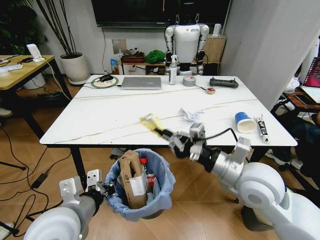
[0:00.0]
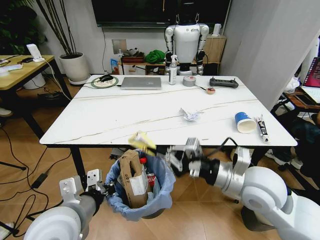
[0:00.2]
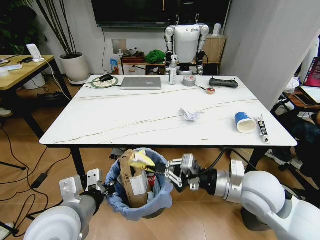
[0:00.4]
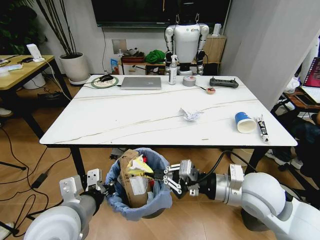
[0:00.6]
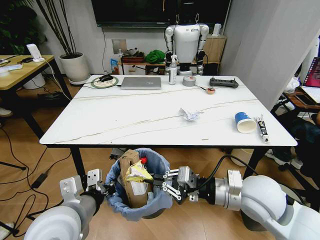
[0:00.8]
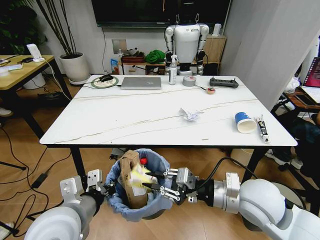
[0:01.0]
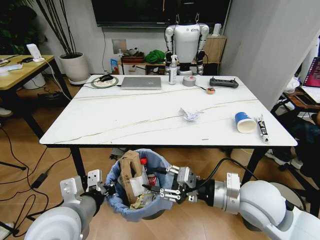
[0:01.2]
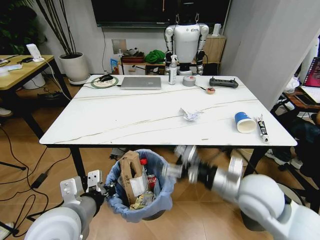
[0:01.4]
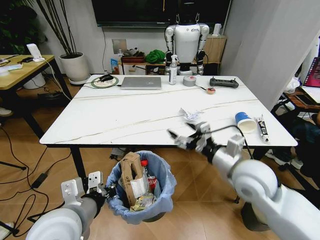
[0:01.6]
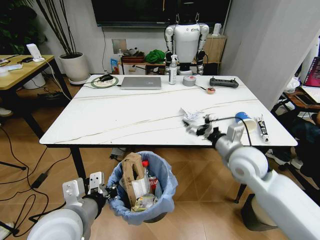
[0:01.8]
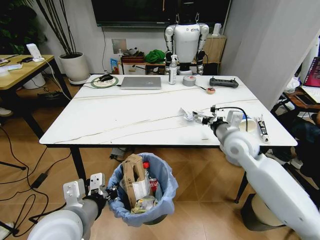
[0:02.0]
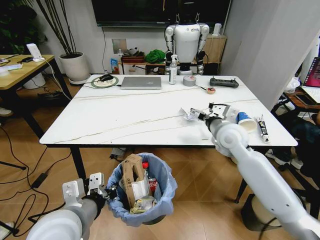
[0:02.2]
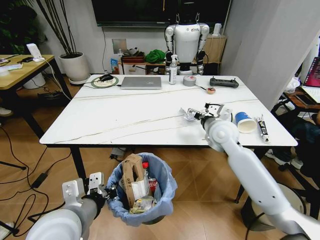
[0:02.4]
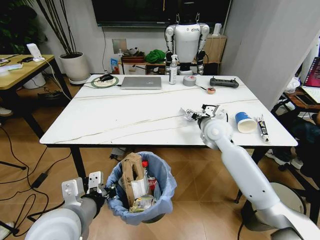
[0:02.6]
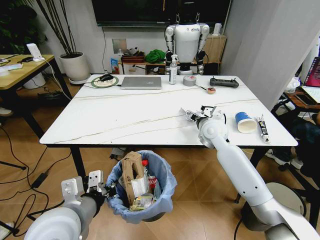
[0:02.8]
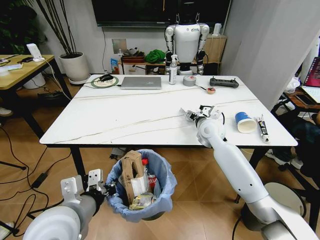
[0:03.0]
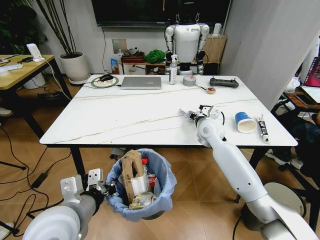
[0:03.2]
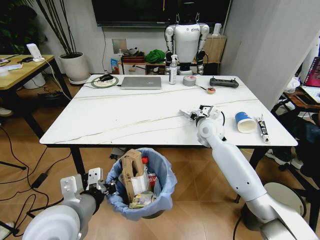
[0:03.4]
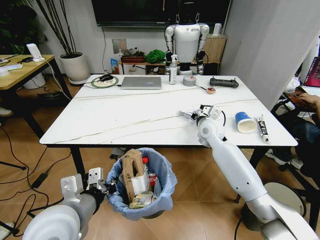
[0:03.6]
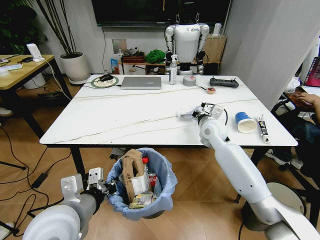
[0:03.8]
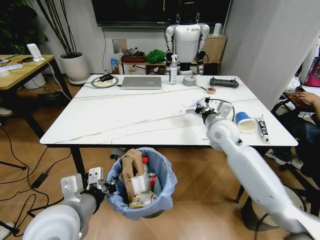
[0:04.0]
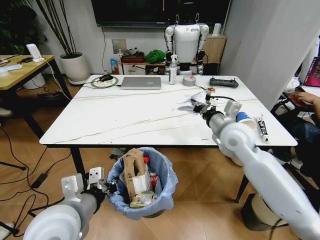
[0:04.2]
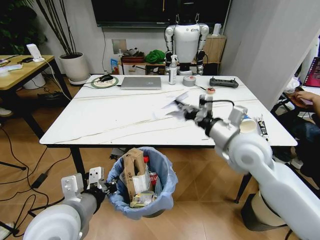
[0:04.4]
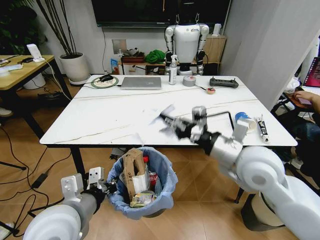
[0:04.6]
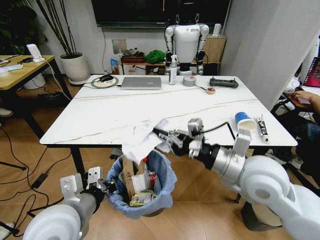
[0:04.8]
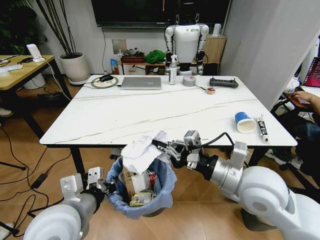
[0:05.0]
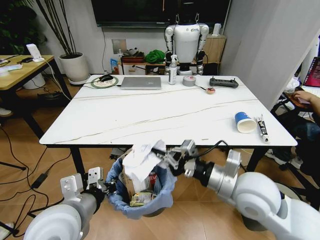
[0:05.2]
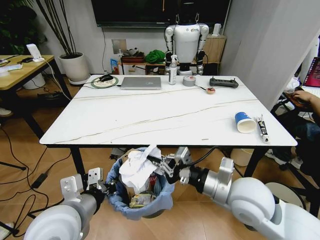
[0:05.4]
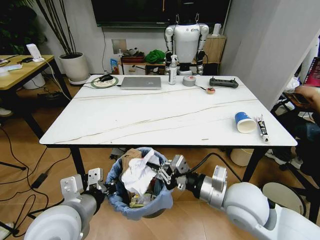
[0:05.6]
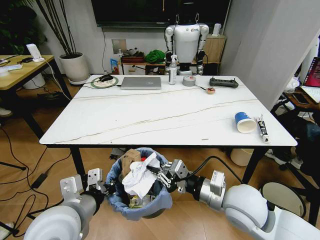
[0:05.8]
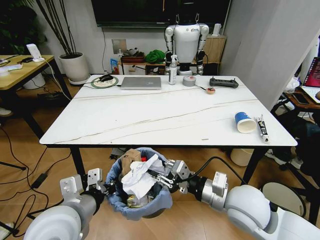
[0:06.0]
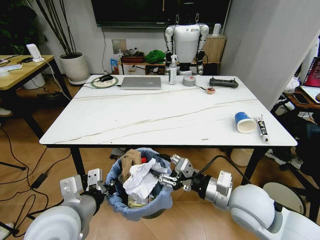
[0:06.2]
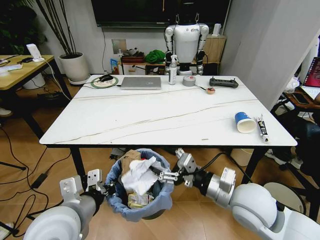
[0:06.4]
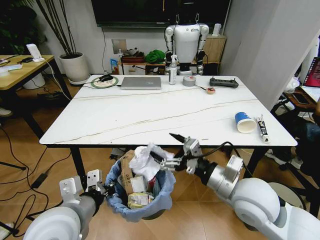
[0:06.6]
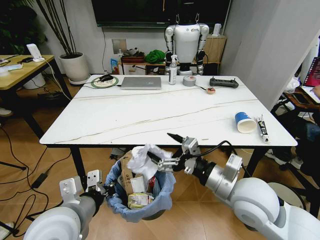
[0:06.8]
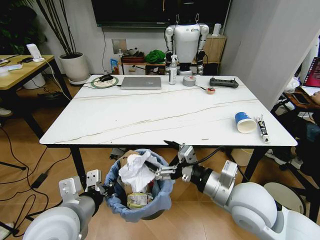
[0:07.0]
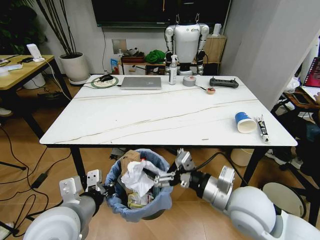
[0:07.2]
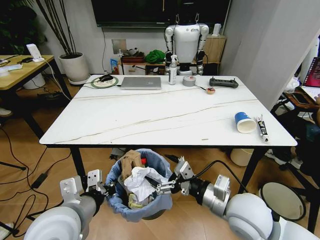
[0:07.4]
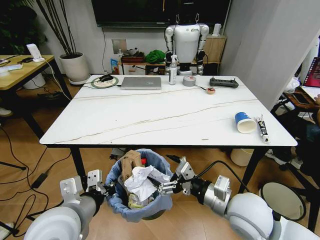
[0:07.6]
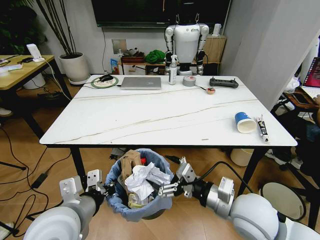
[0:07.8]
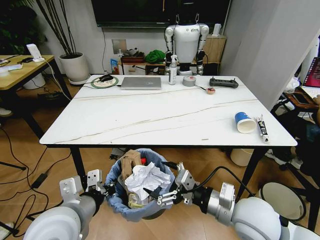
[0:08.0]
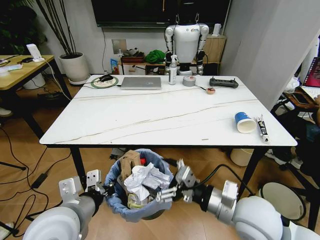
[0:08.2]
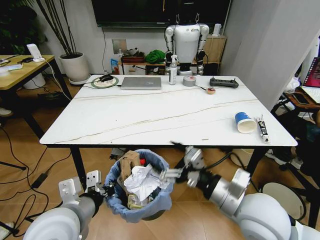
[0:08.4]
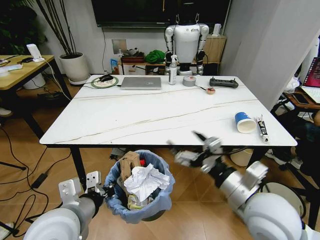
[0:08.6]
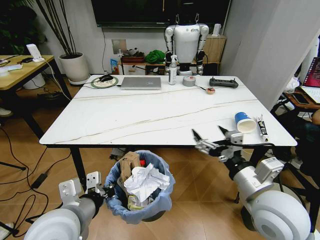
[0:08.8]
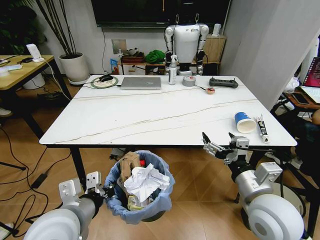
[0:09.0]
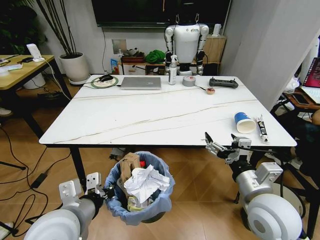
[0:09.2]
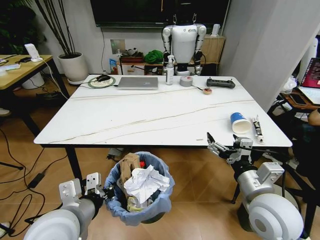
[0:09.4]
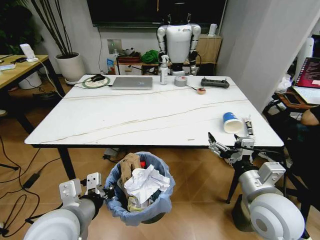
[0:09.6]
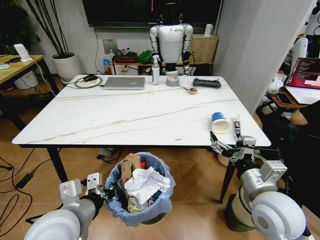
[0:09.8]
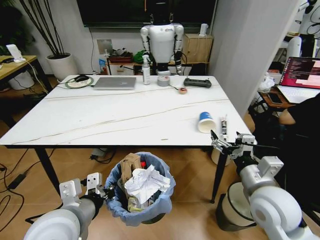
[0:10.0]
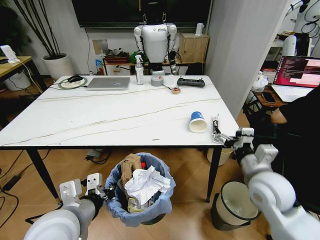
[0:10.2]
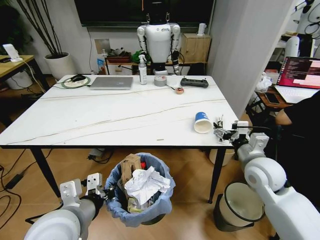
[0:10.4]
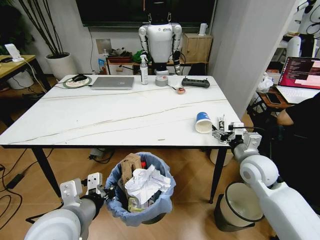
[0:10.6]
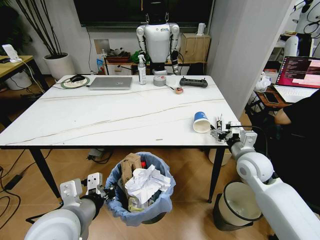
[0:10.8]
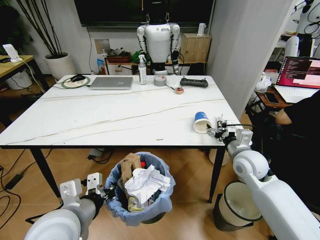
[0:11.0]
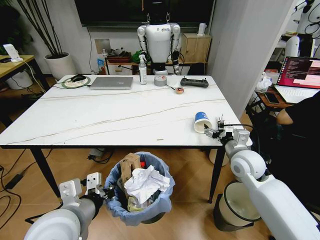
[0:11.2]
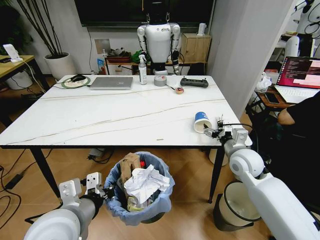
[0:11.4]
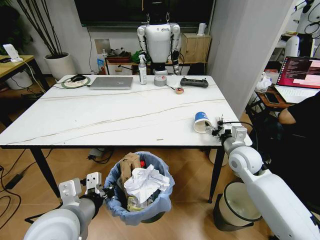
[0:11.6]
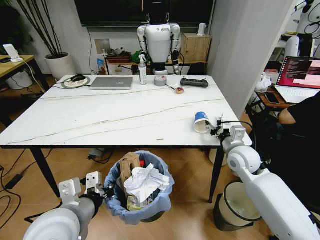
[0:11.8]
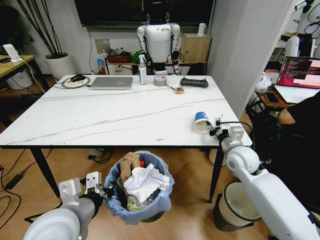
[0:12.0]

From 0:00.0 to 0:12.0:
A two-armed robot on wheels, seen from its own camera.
Task of the whole recording: Pick up the trash bin and place the trash from the table into it.
From 0:00.0 to 0:01.6: The right gripper opens up.
From 0:01.6 to 0:03.0: The right gripper goes about 20 cm forward.
From 0:03.0 to 0:04.4: The right gripper travels backward and upward by about 20 cm, and closes.
From 0:04.4 to 0:06.0: The right gripper is displaced backward and downward by some 15 cm.
From 0:06.0 to 0:07.6: The right gripper opens.
From 0:07.6 to 0:09.0: The right gripper moves approximately 5 cm.
From 0:09.0 to 0:10.4: The right gripper heads forward and to the right, covering roughly 15 cm.
From 0:10.4 to 0:12.0: The right gripper moves forward, about 10 cm, and closes.

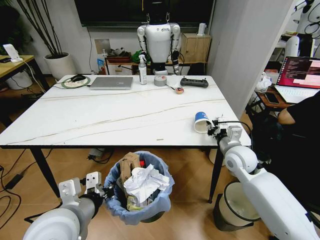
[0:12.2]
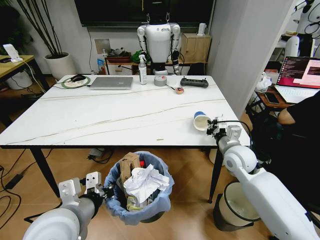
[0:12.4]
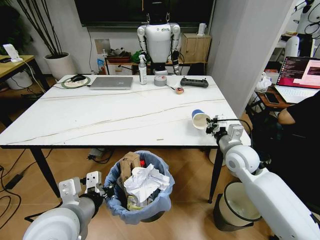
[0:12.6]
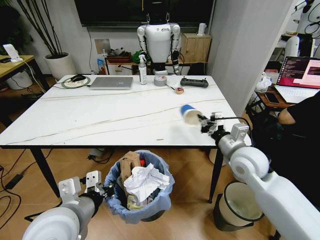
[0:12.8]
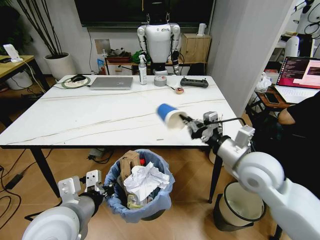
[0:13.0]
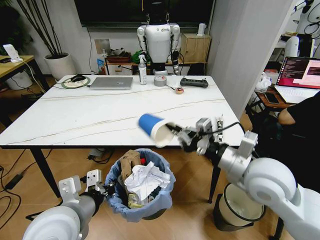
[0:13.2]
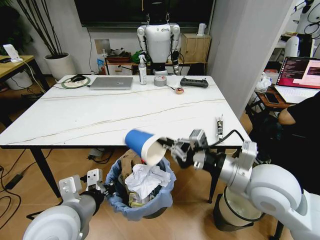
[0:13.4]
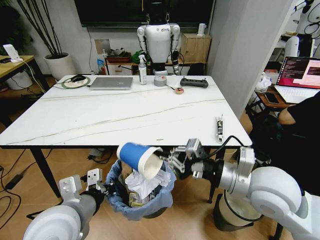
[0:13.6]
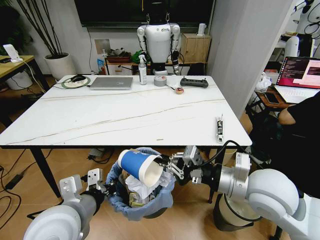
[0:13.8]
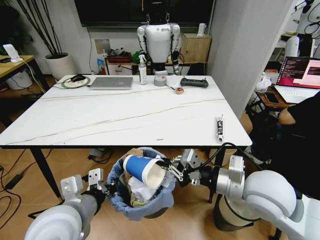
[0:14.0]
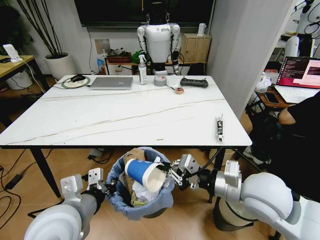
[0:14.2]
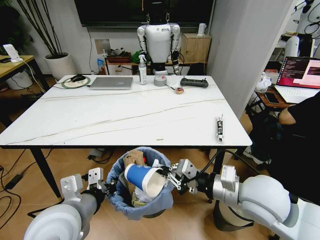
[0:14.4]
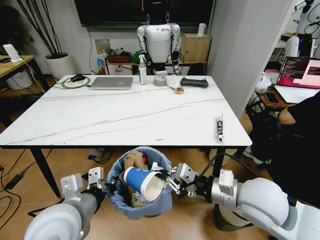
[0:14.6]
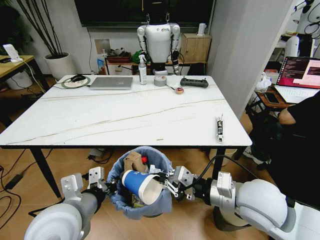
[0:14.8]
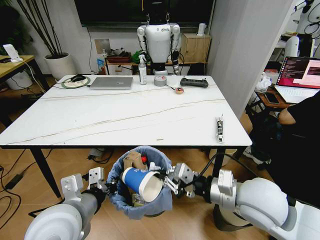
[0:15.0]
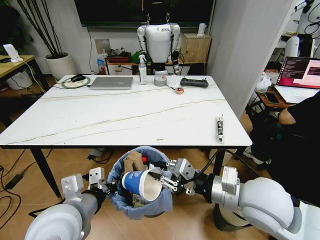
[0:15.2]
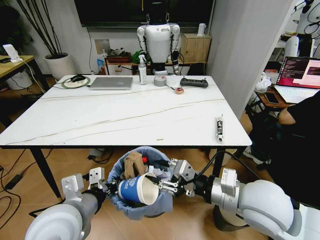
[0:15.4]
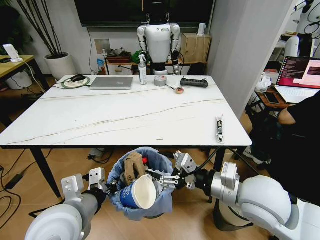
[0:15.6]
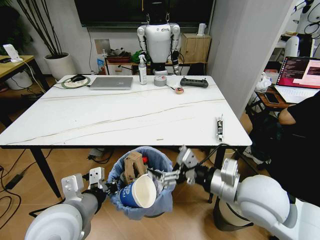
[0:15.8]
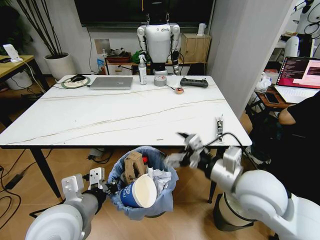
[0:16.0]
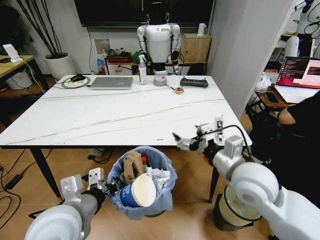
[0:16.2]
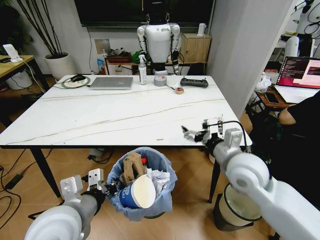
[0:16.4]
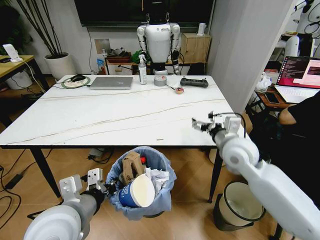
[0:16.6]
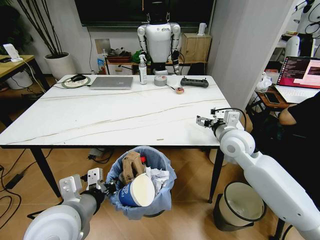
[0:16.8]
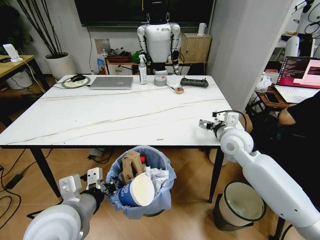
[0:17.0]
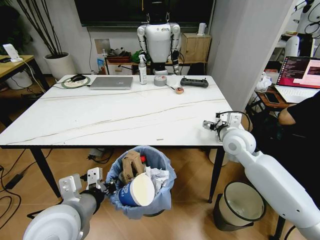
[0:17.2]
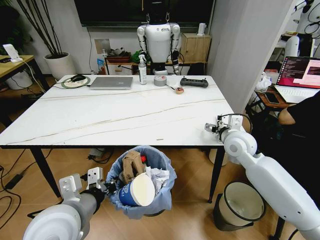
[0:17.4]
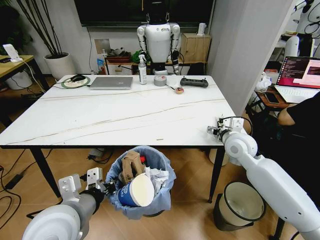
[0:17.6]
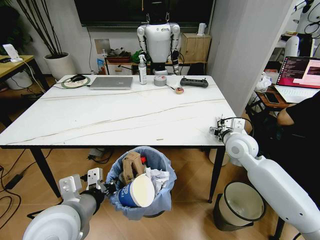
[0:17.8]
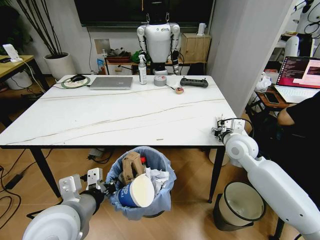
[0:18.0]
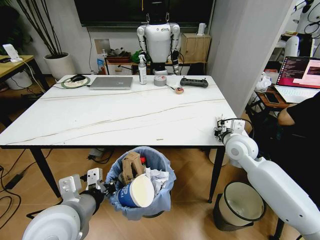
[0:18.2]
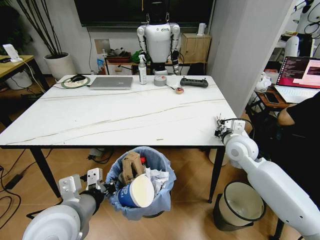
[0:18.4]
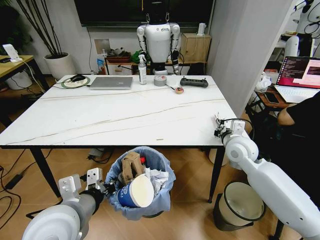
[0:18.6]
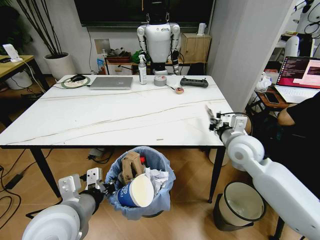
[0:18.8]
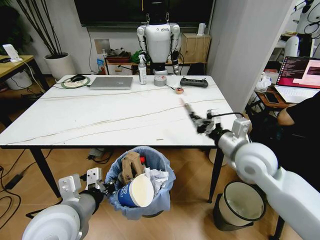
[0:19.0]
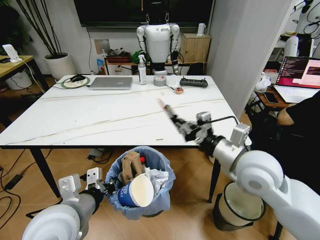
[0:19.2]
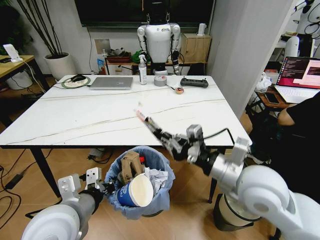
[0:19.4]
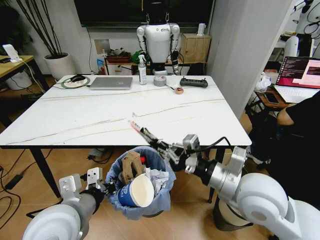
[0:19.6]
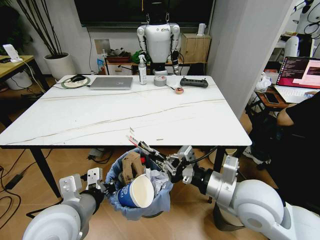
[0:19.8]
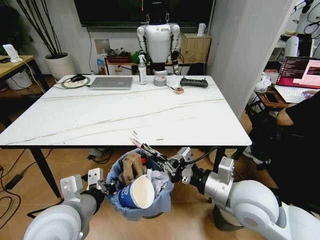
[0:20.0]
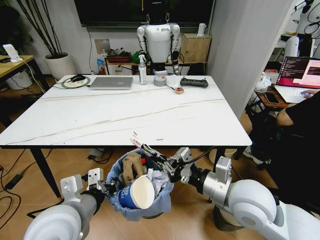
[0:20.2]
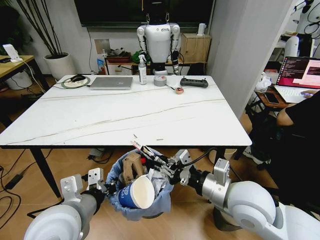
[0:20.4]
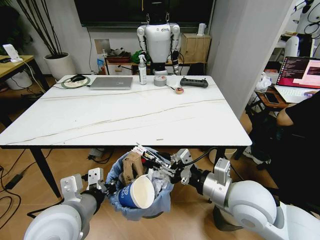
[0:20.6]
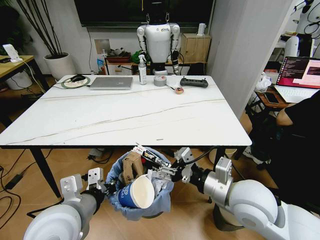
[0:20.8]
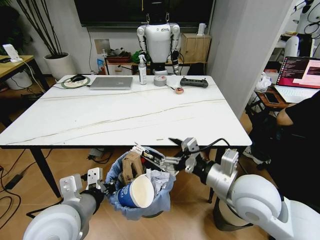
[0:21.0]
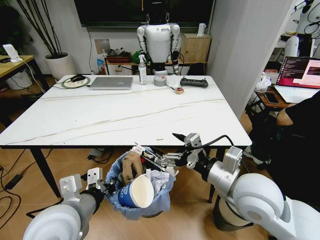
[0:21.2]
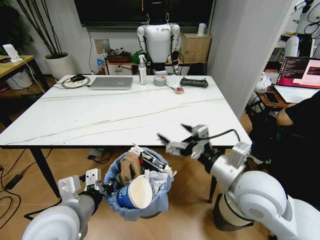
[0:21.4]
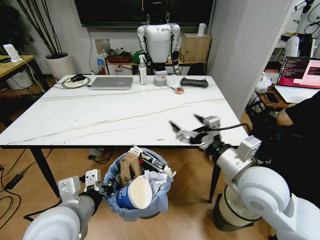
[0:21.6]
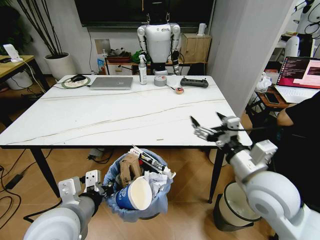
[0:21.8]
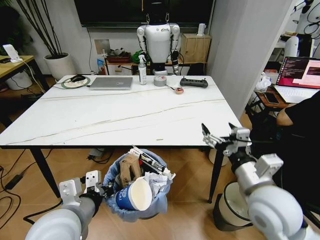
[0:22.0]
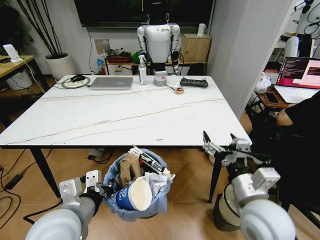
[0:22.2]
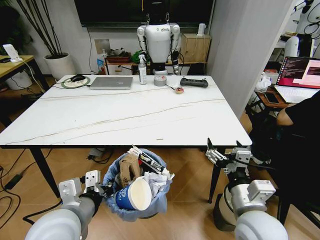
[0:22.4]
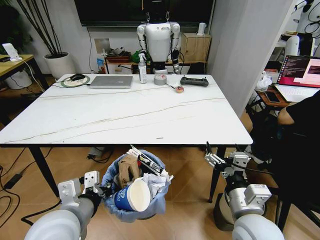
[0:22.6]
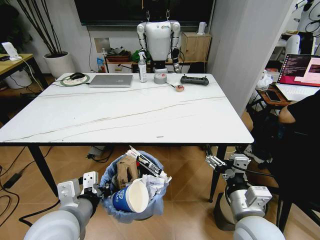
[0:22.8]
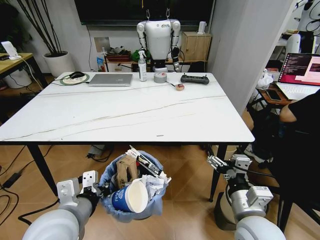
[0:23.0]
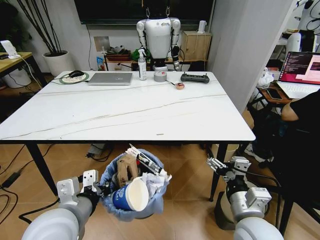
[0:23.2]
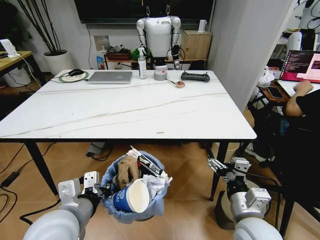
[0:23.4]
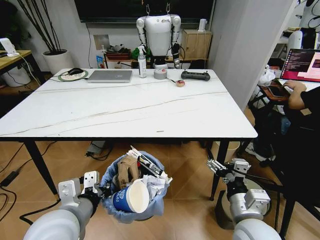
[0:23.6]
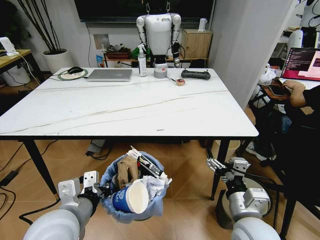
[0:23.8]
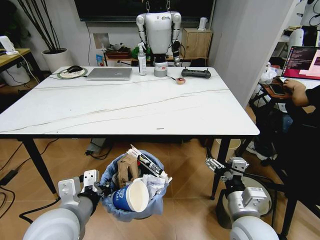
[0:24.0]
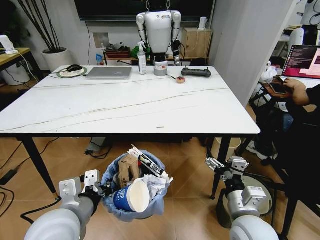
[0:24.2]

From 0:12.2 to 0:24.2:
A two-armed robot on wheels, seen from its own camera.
Task of the whole recording: Pick up the trash bin and place the trash from the table into it.
From 0:12.2 to 0:13.8: The right gripper moves backward and upward, approximately 20 cm.
From 0:13.8 to 0:15.2: The grippers make only small movements.
From 0:15.2 to 0:16.6: The right gripper travels forward by roughly 15 cm, and opens.
From 0:16.6 to 0:18.2: The right gripper shifts by roughly 5 cm, and closes up.
From 0:18.2 to 0:19.8: The right gripper travels backward by roughly 20 cm, and closes.
From 0:19.8 to 0:21.2: The right gripper opens up.
From 0:21.2 to 0:22.6: The right gripper is displaced downward and backward by approximately 10 cm.
